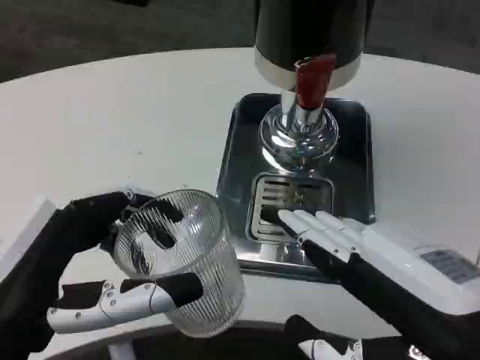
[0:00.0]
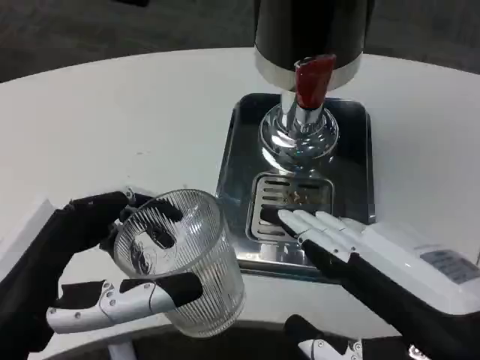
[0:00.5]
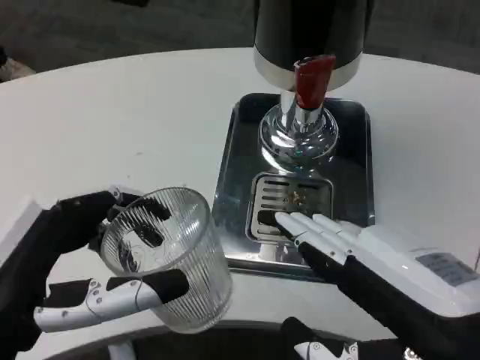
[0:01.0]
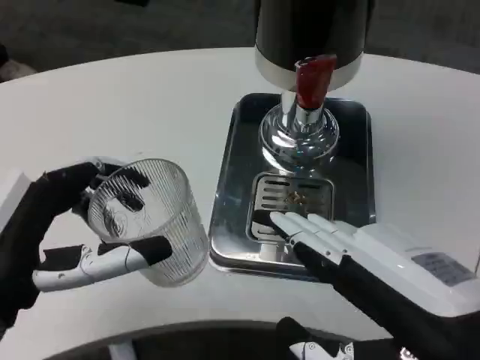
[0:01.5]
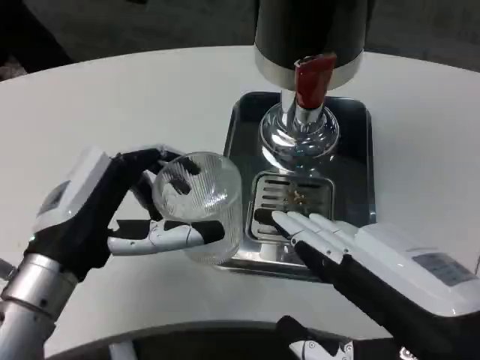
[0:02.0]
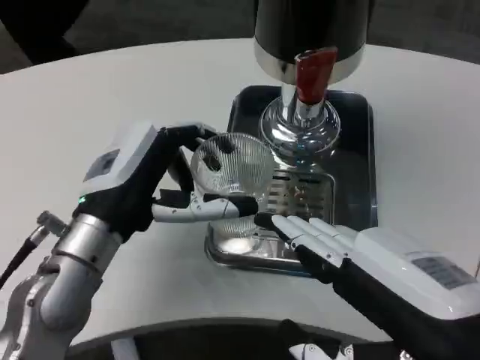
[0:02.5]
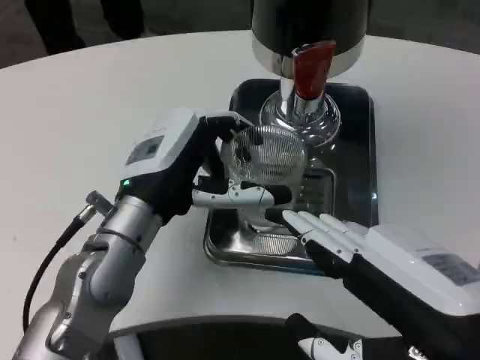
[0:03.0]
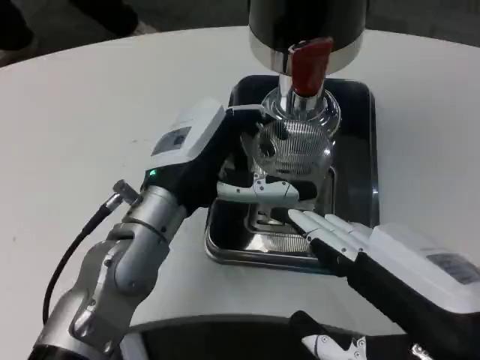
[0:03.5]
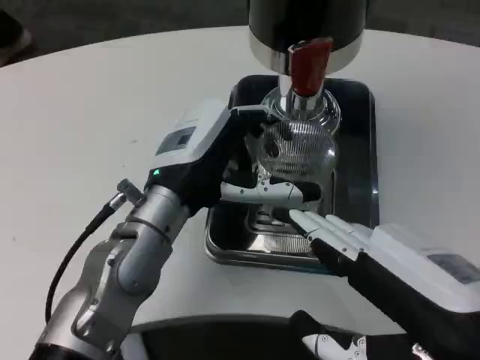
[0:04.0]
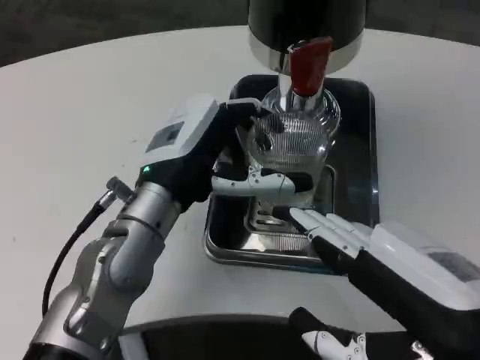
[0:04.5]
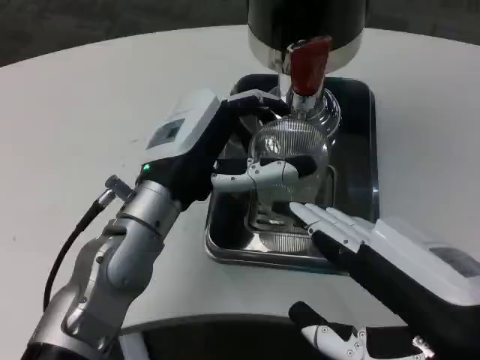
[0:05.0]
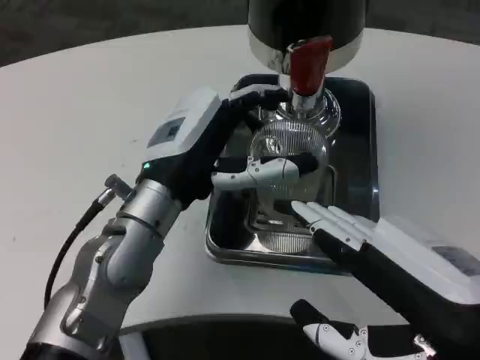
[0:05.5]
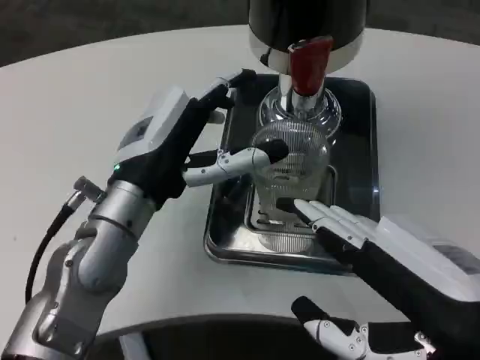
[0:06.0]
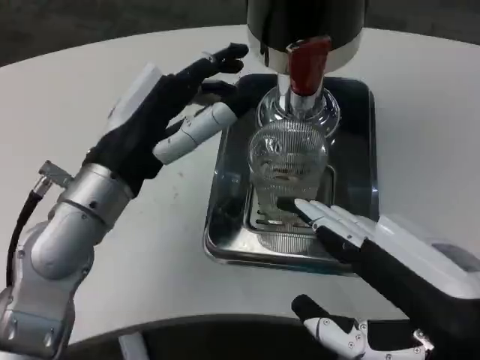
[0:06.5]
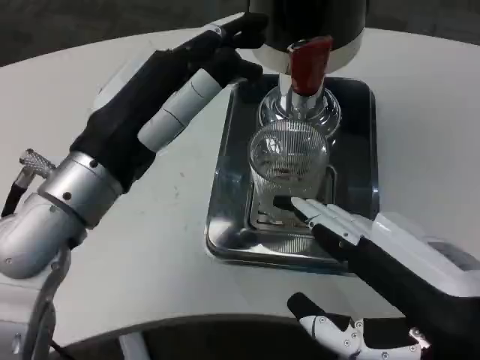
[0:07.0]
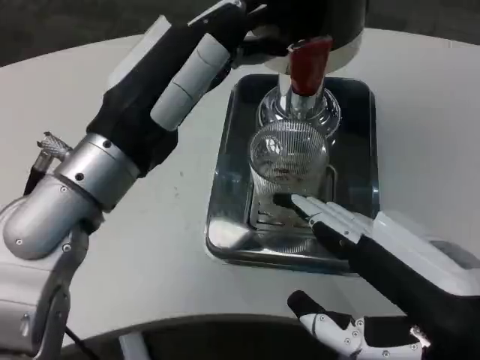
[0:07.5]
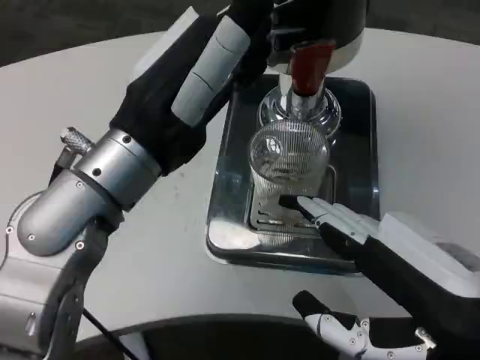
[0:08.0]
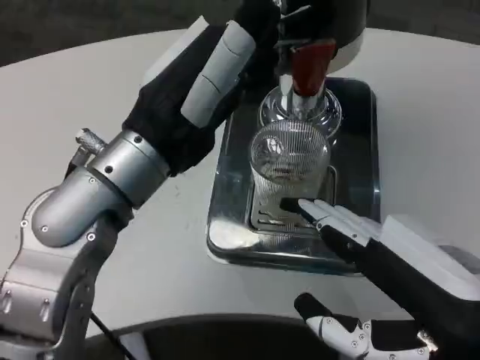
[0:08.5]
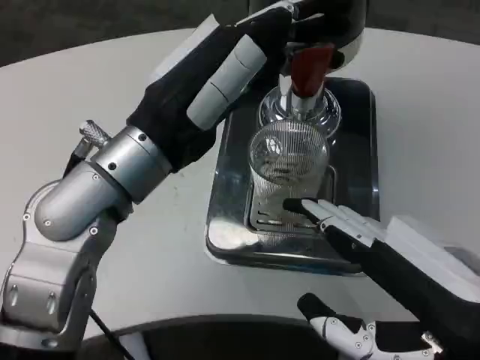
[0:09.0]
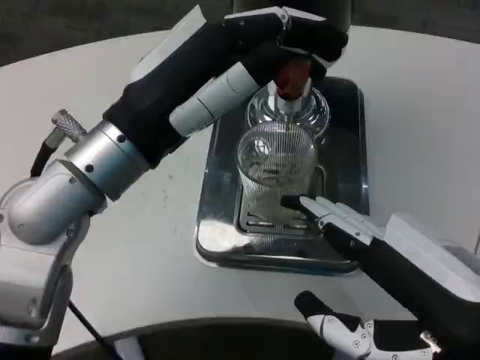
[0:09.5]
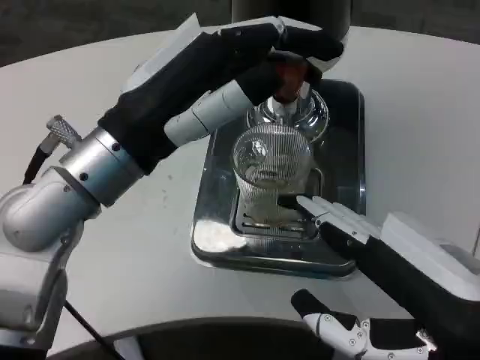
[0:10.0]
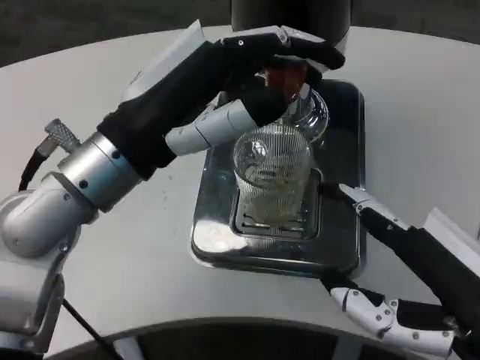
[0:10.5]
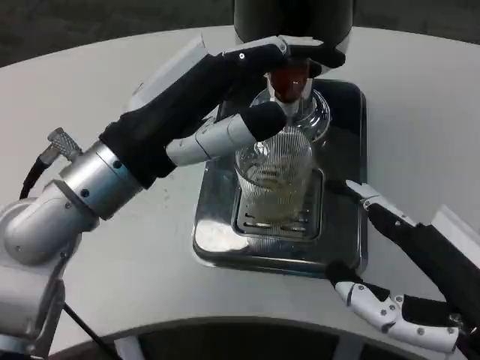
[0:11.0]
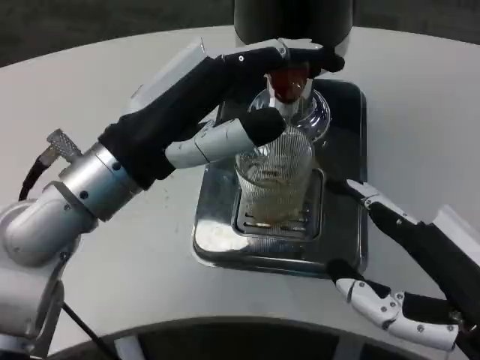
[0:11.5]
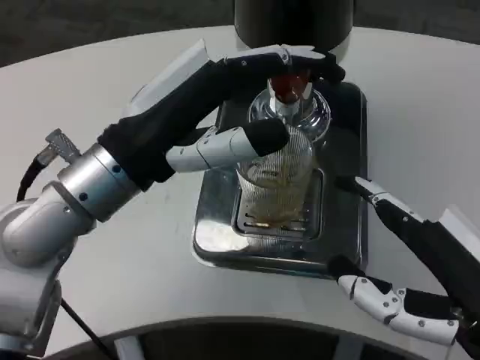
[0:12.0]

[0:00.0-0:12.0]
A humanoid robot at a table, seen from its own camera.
Task of the whole recording: Grasp the cup under the faucet to collect the drink, then remove the cup.
0:00.0 to 0:02.0: The left hand heads forward, covering some 10 cm.
0:02.0 to 0:04.0: The left hand goes about 10 cm to the right and forward.
0:06.0 to 0:08.0: The left hand goes some 10 cm upward.

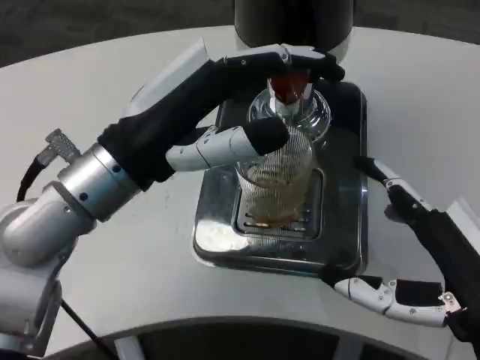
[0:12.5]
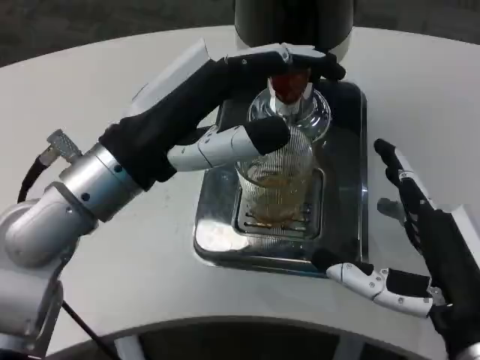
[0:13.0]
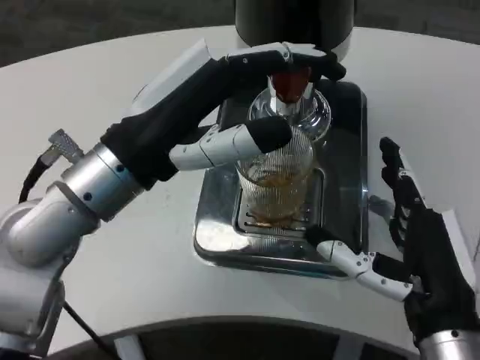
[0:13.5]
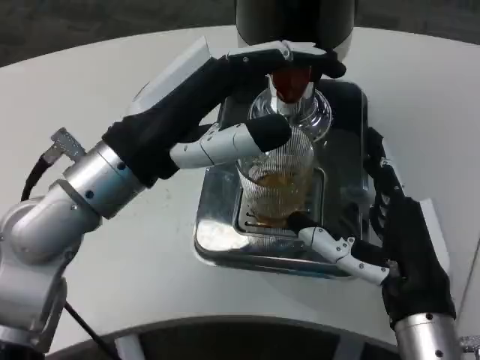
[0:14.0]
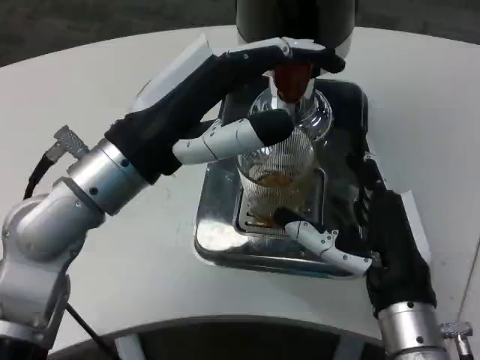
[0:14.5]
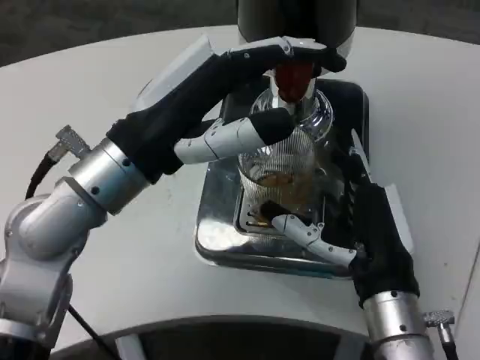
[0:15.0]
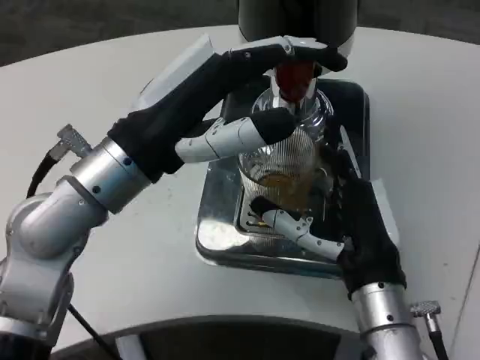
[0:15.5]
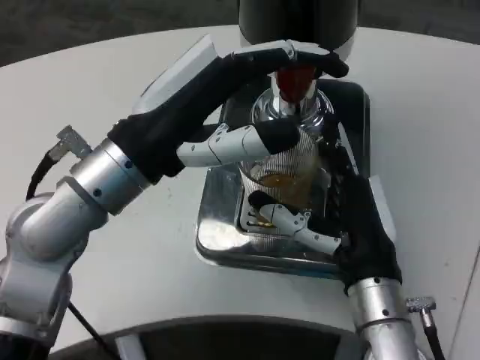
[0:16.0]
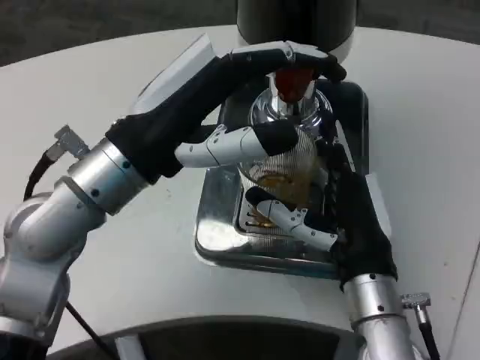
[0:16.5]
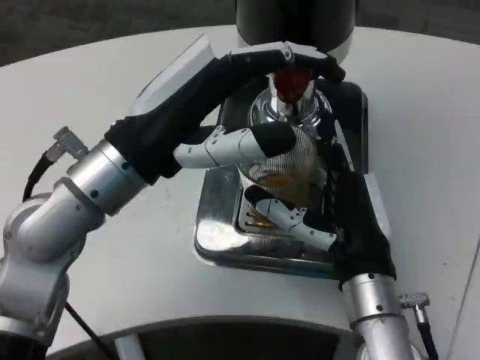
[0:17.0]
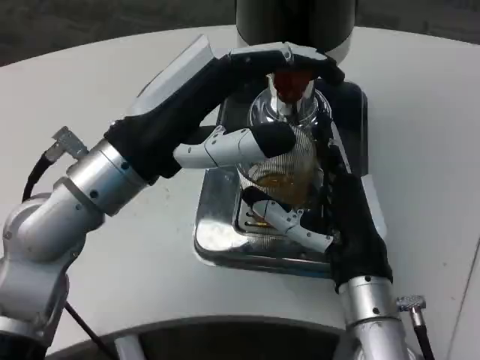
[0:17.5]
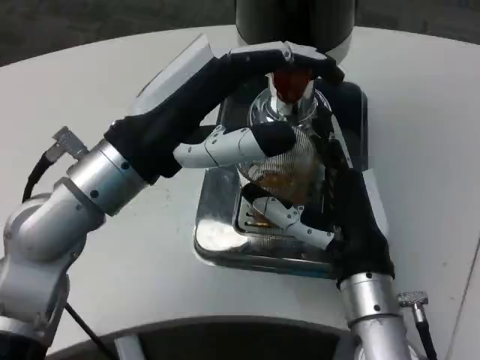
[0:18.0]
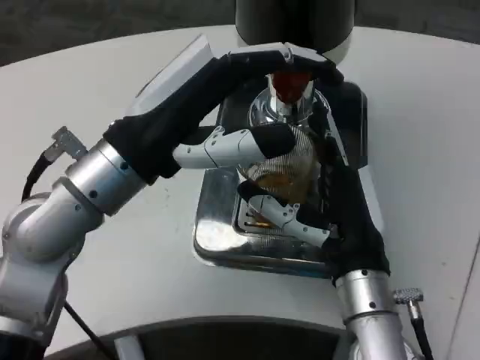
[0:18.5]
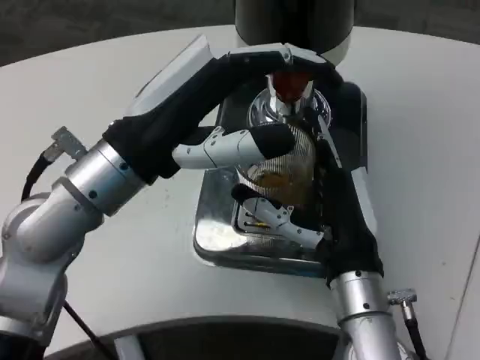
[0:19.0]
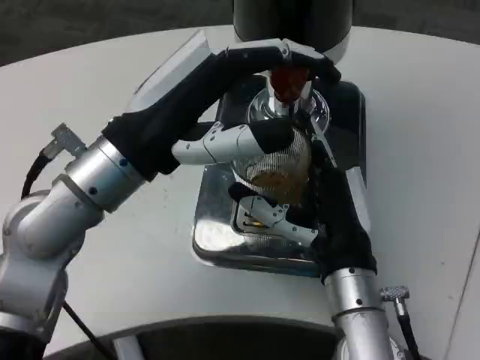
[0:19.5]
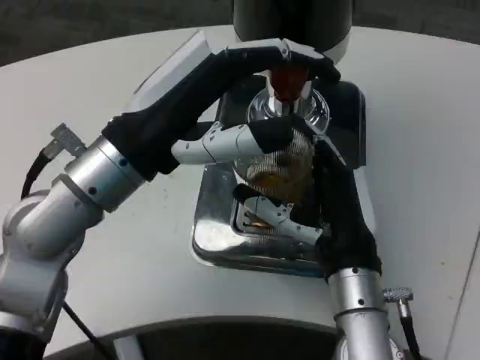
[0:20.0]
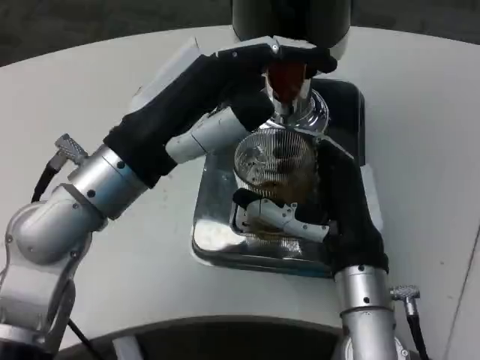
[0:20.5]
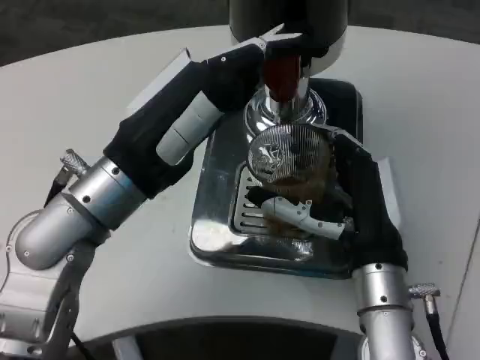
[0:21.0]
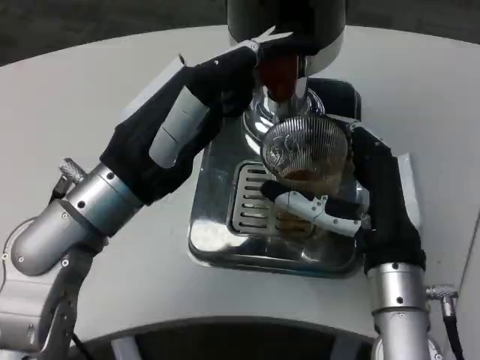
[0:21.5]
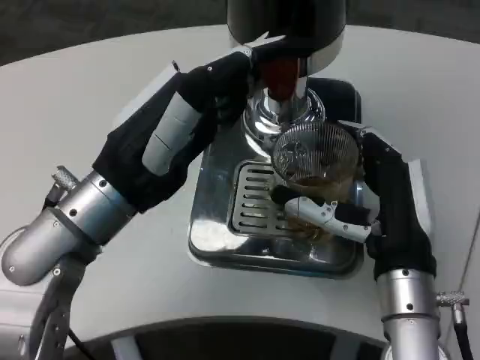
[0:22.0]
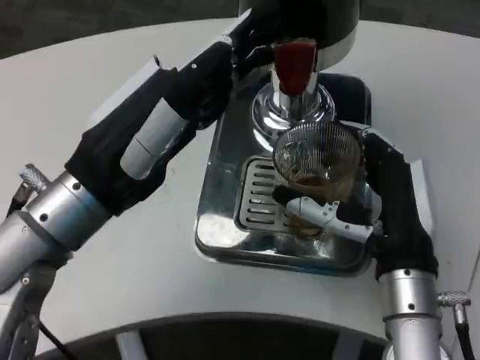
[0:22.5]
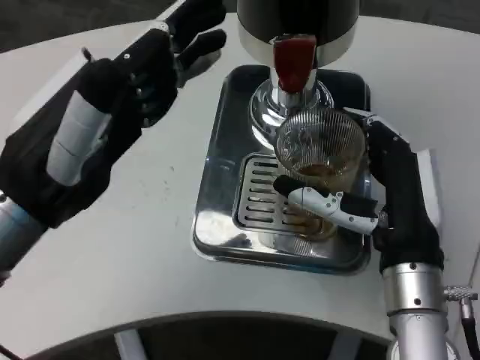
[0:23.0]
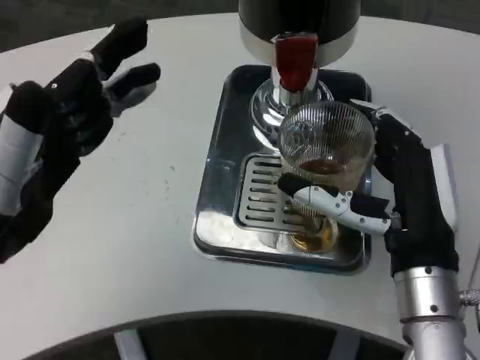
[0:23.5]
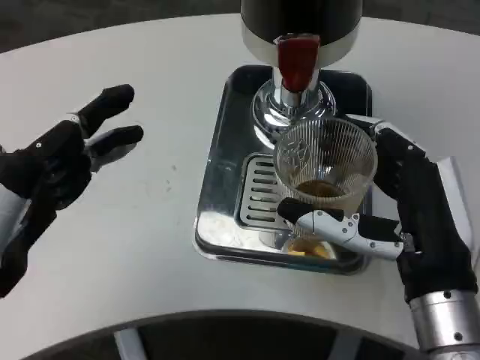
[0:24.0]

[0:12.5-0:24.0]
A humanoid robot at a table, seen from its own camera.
Task of the whole recording: Grasp the cup under the faucet to collect the drink, then remove the cup.
0:12.5 to 0:14.5: The right hand goes approximately 10 cm forward, to the left and downward.
0:14.5 to 0:16.5: There are only small adjustments of the hands.
0:16.5 to 0:18.5: Both hands stay put.
0:18.5 to 0:20.0: Both hands stay put.
0:22.0 to 0:24.0: The right hand goes some 5 cm backward. Meanwhile the left hand heads backward and to the left, covering about 15 cm.

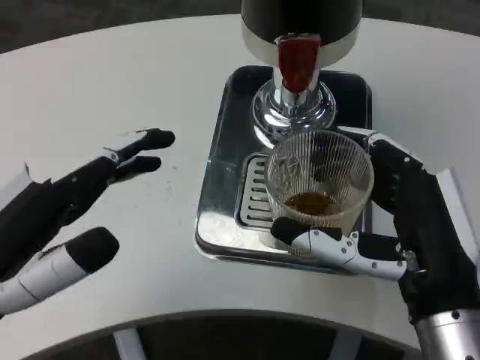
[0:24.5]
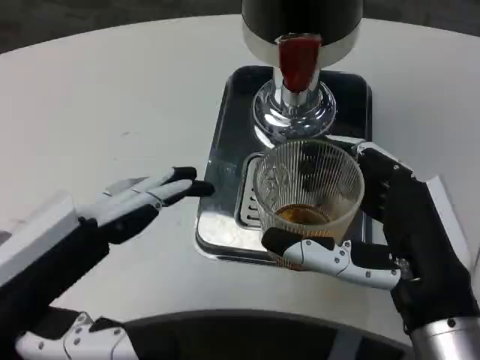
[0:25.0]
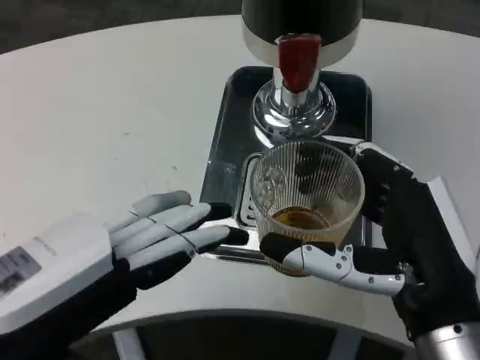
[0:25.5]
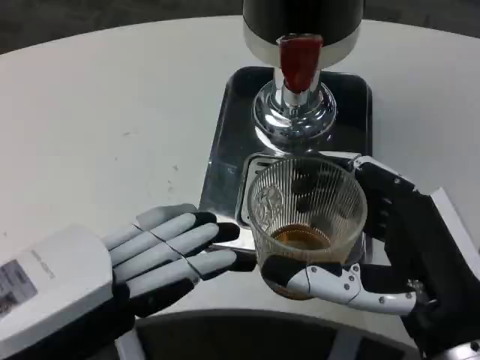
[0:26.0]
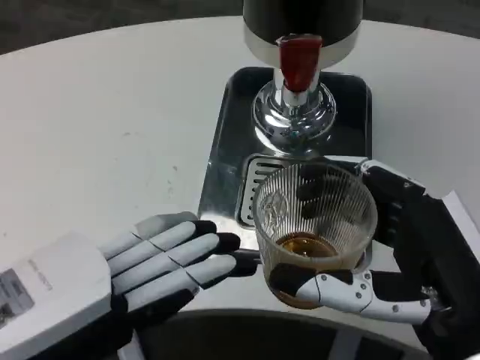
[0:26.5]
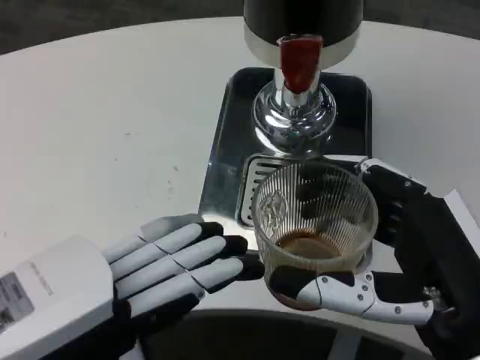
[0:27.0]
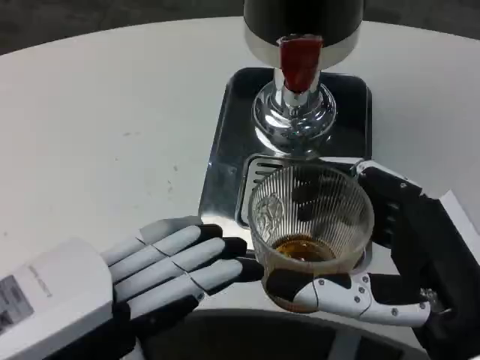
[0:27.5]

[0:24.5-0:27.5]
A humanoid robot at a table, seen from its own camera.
Task of the whole recording: Grasp the cup under the faucet to collect the drink, then remove the cup.
0:26.0 to 0:27.5: The hands stay close to where they were, moving slightly.
